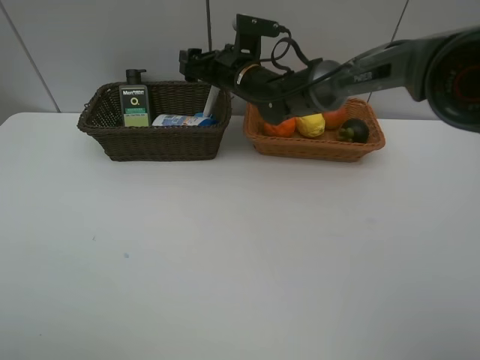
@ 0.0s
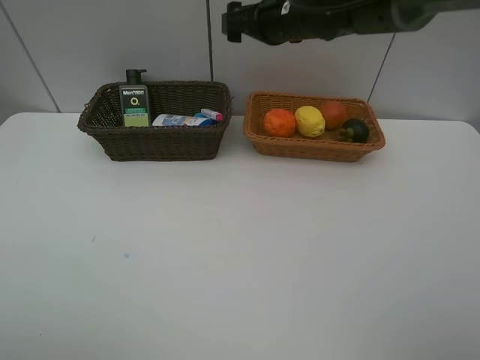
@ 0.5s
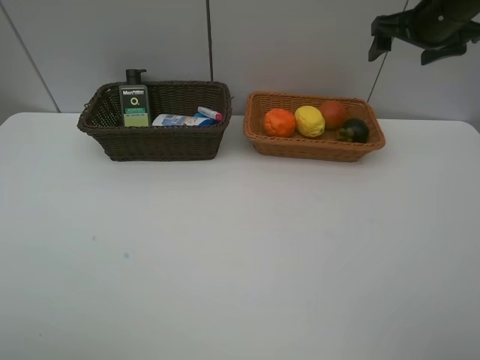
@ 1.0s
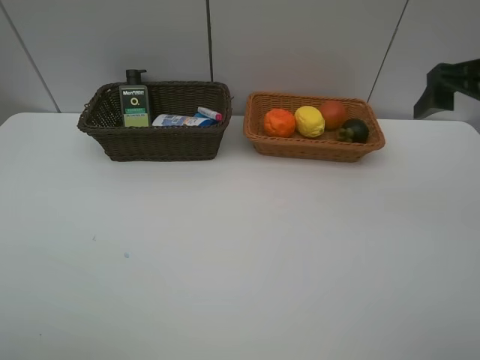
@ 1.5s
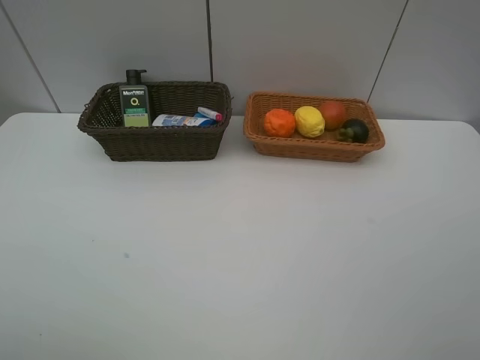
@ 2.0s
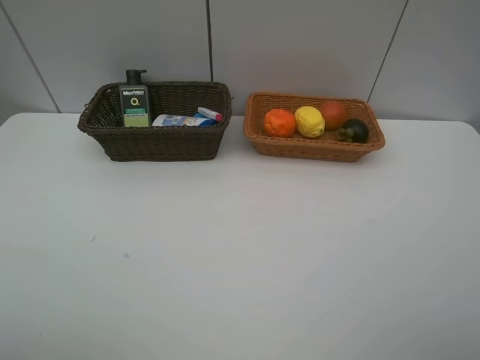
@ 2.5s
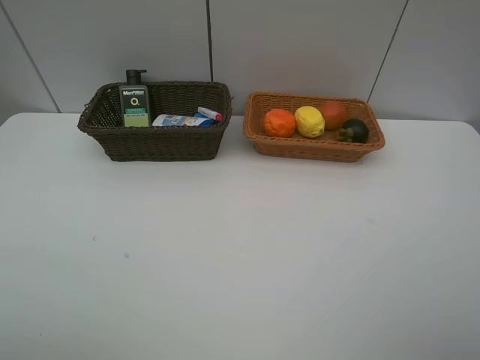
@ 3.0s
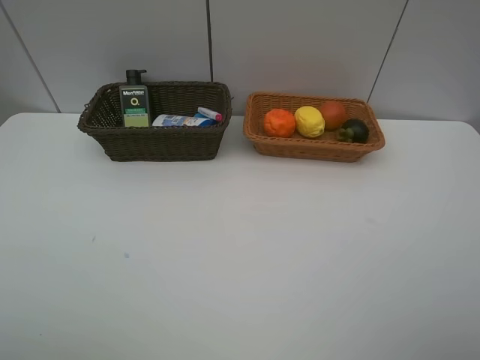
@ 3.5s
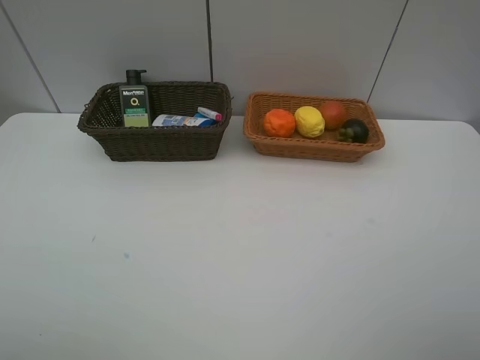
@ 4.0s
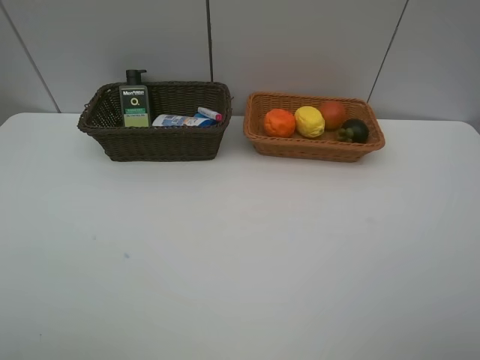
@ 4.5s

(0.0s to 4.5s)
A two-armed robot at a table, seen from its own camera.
Task of the whole recording: Place multiple objects separately in different baskets.
0.0s - 2.0s: The right gripper moves backward and to the right, some 50 cm.

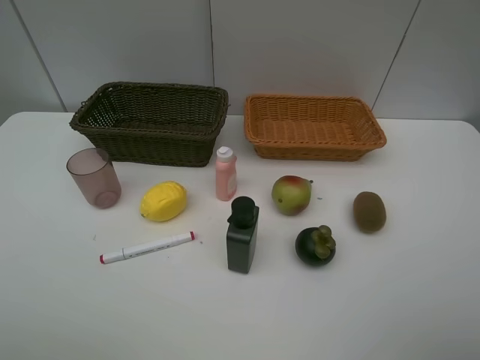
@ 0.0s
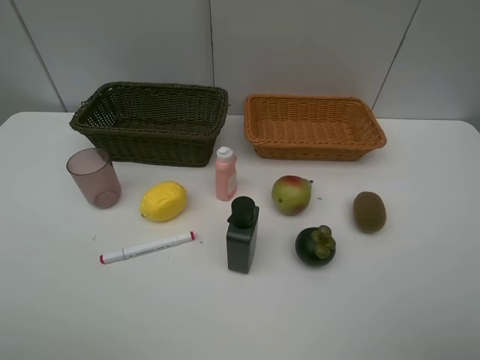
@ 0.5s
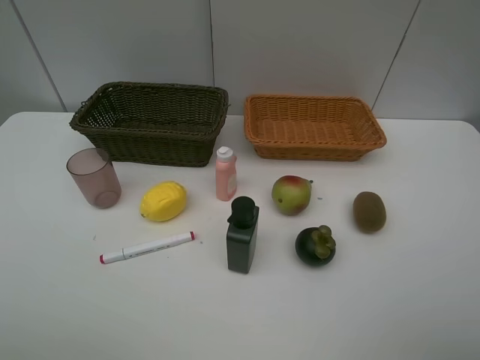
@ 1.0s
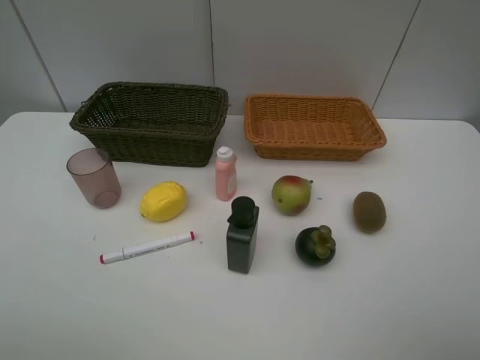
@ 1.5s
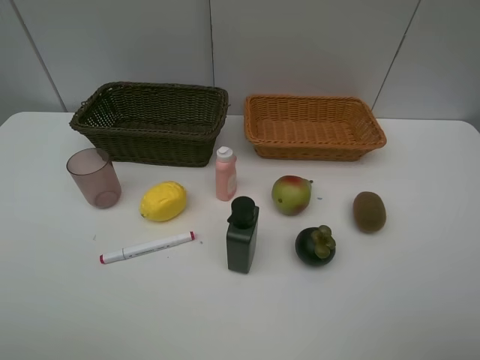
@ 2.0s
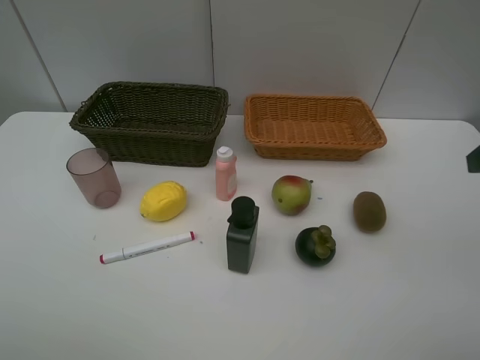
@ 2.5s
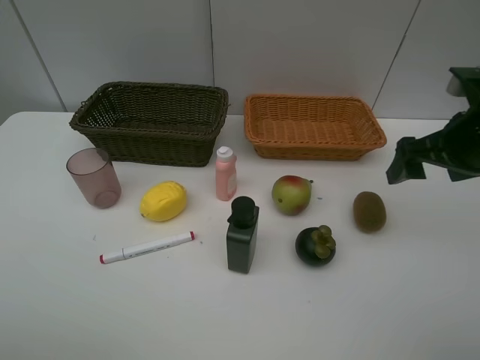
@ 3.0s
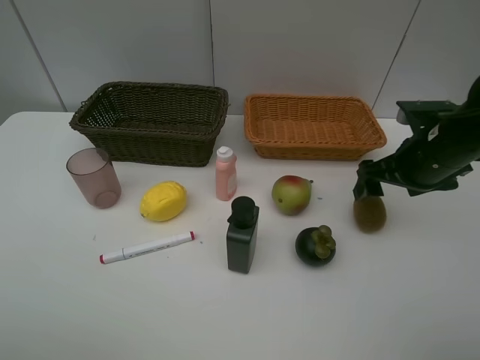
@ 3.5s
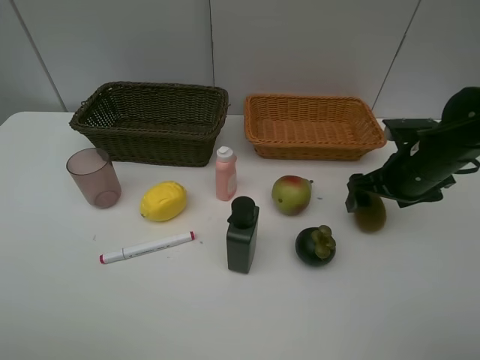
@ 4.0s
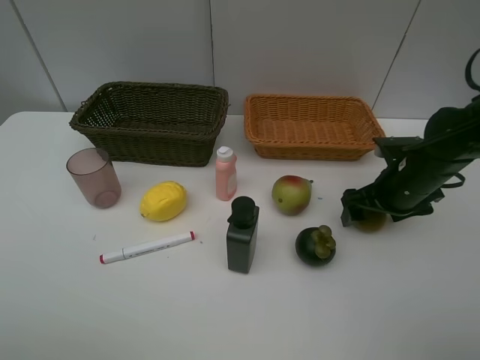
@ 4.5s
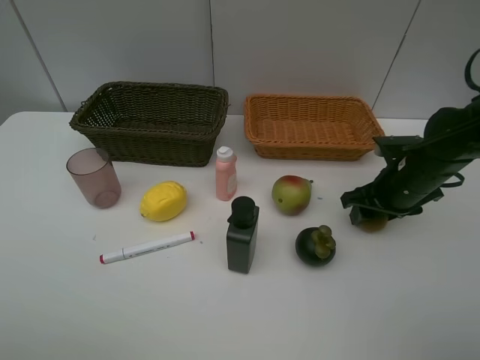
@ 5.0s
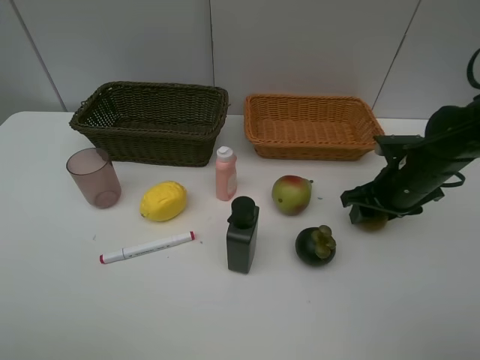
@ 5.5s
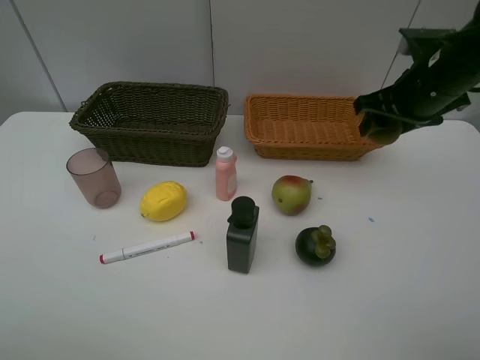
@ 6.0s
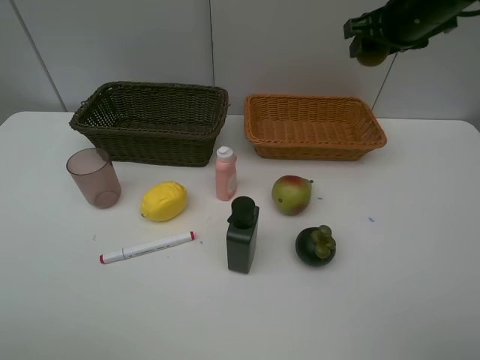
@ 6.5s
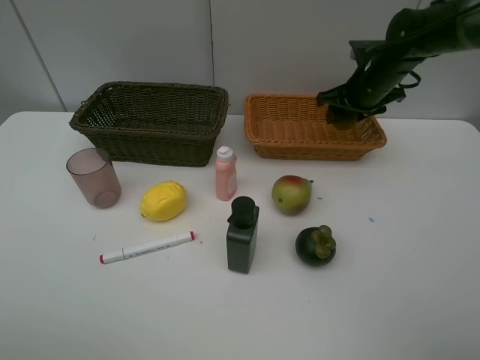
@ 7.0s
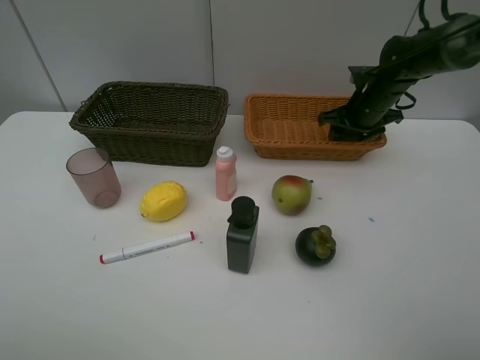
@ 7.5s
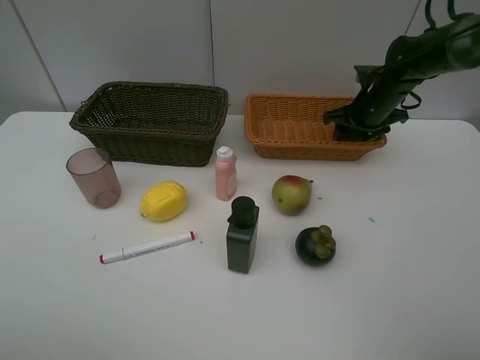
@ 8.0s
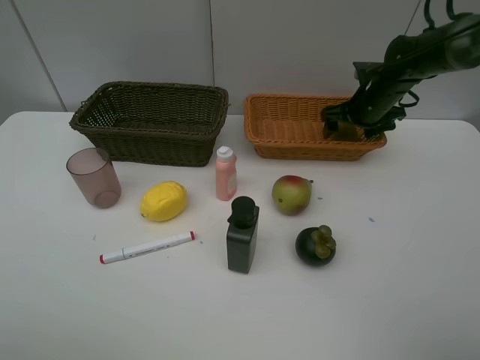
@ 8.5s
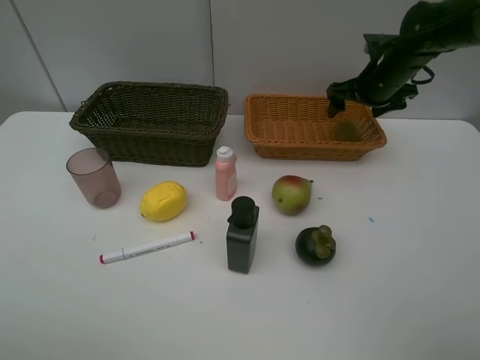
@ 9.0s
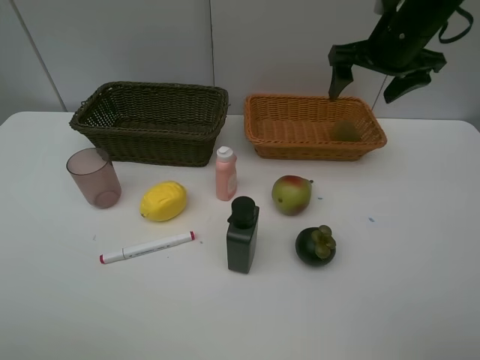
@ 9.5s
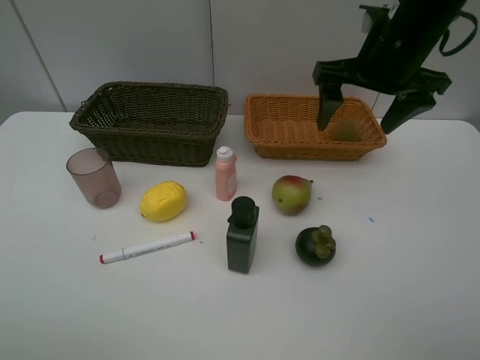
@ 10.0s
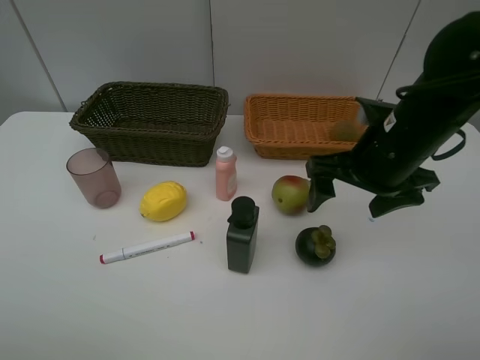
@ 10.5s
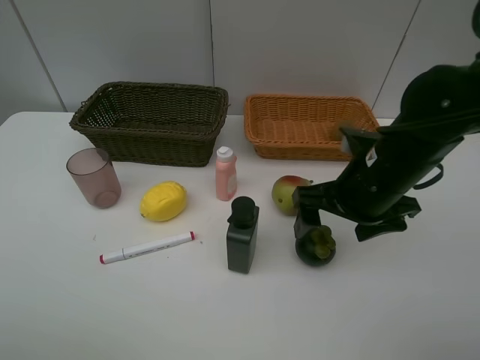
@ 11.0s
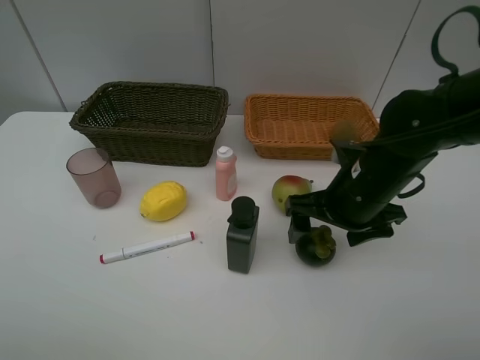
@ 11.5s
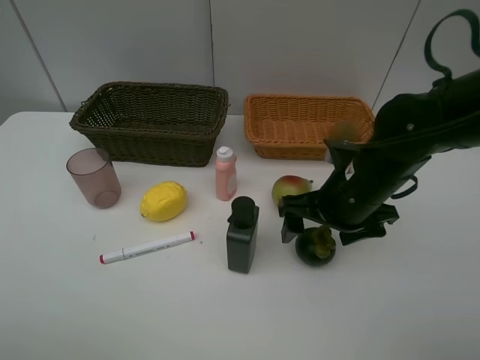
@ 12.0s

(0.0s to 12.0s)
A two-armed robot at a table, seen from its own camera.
Task of the whole recording: Place multiple objects separately in different baskets.
Step, 0.0s - 5.5s: Pick up kiwi with right gripper.
Step, 6.0s - 9.0s: Place the kiwi in the light basket with right gripper.
0.0s - 2.0s: The two grippers keep their place.
2.0s - 4.0s: The right gripper moves forward and downward, approximately 30 cm.
4.0s - 6.0s: The right gripper travels upward by roughly 10 cm, and closes up.
6.0s - 8.0s: The right gripper shifts roughly 15 cm forward and downward.
8.0s - 10.0s: The right gripper is displaced backward, upward and to the left by approximately 20 cm, and opens up.
10.0s - 12.0s: The right gripper travels downward and backward by some 15 cm.

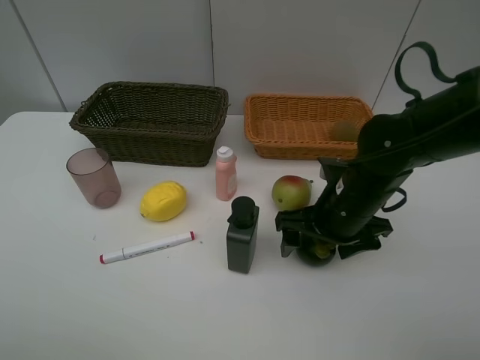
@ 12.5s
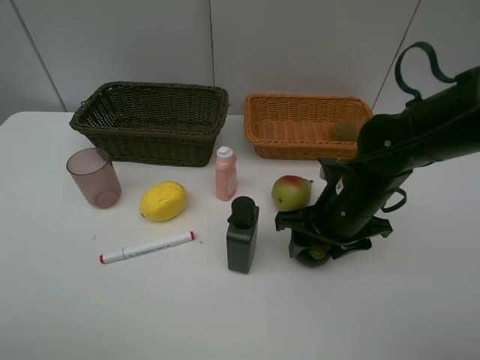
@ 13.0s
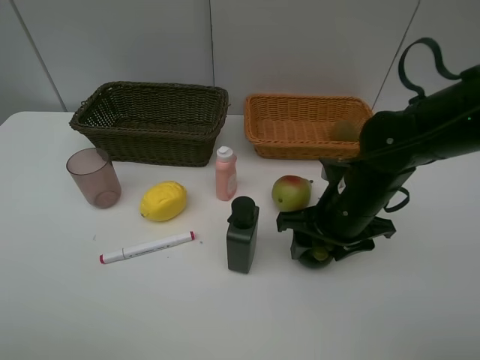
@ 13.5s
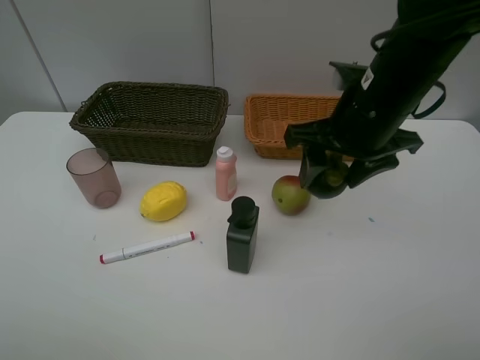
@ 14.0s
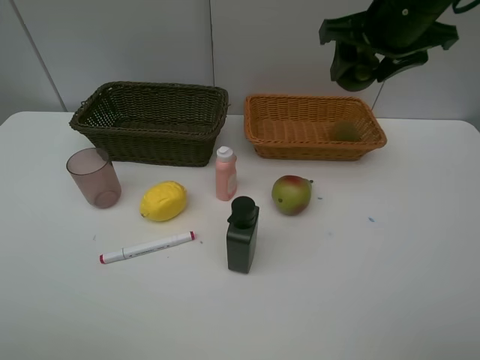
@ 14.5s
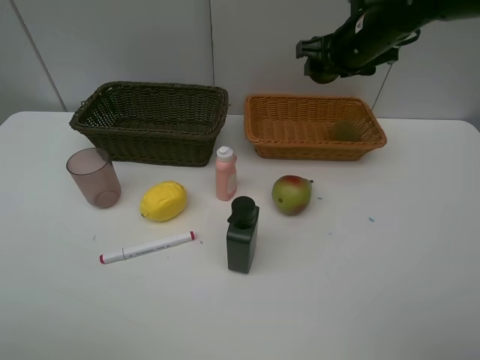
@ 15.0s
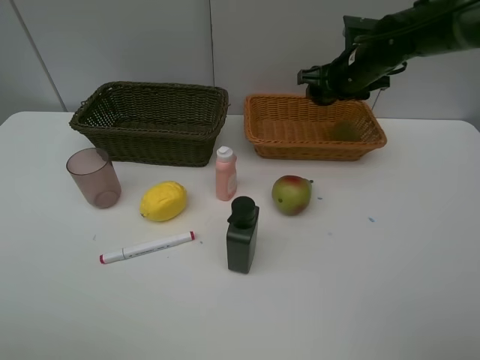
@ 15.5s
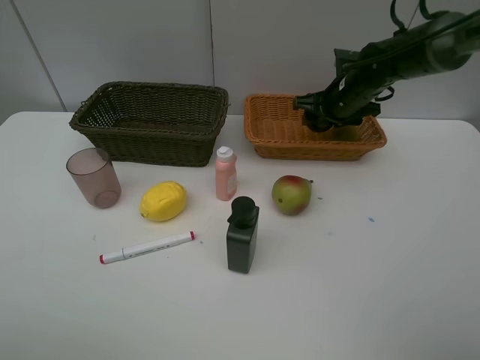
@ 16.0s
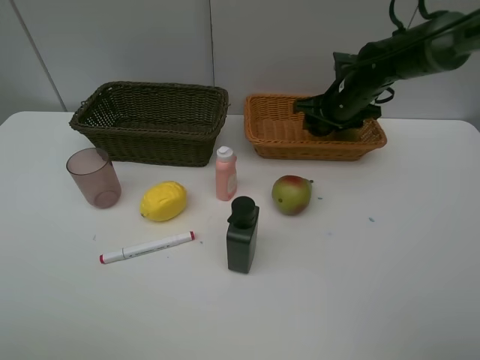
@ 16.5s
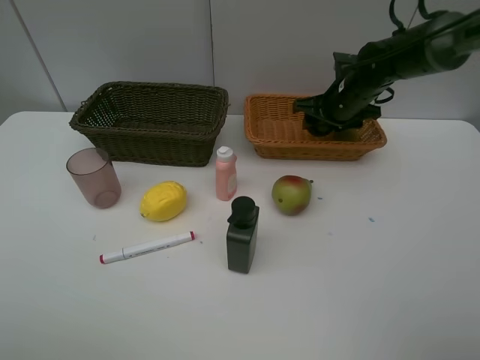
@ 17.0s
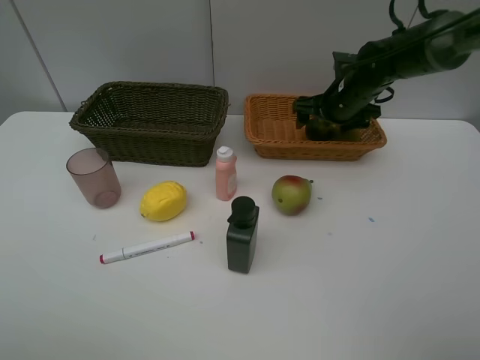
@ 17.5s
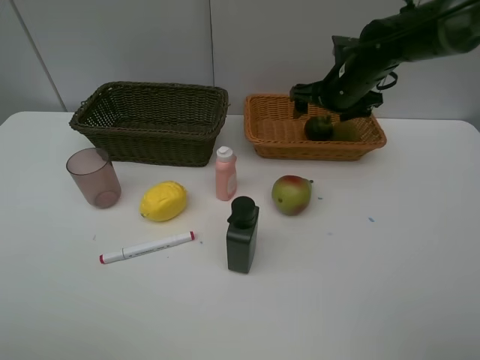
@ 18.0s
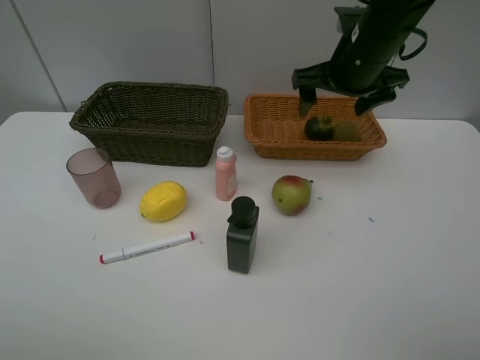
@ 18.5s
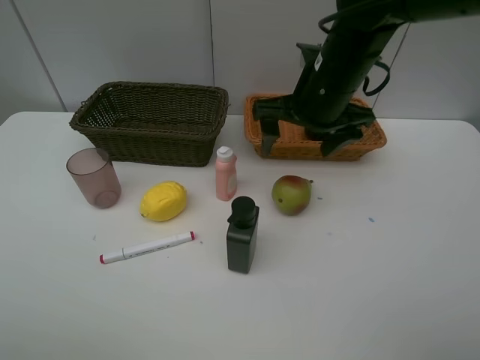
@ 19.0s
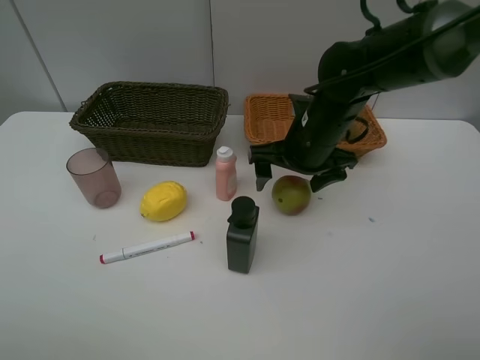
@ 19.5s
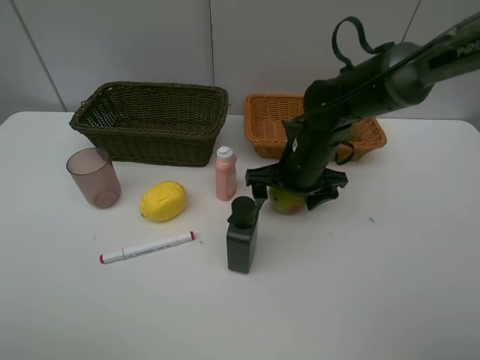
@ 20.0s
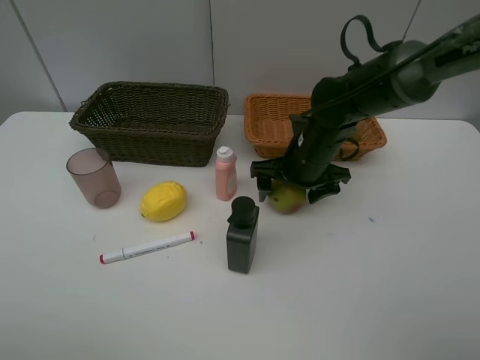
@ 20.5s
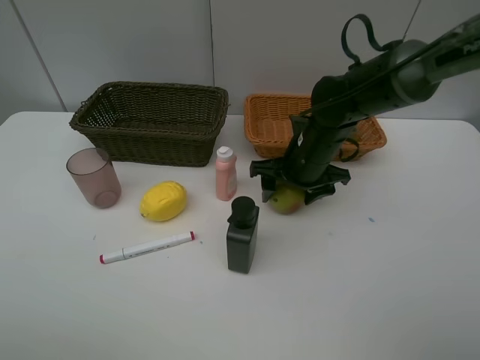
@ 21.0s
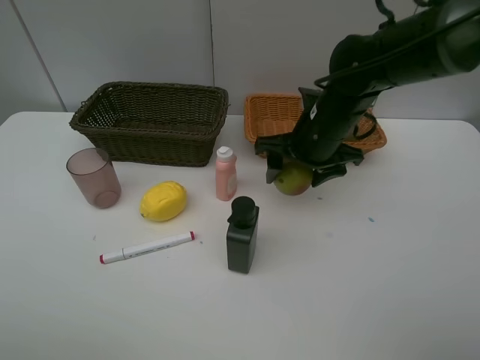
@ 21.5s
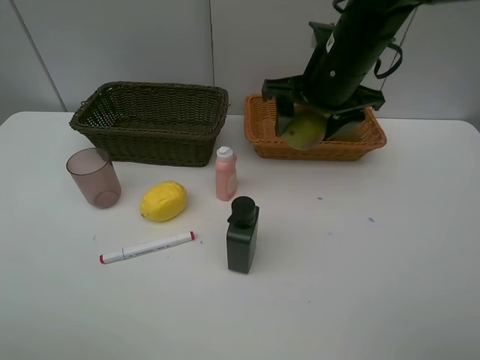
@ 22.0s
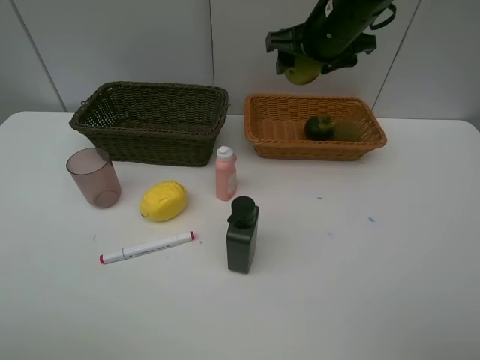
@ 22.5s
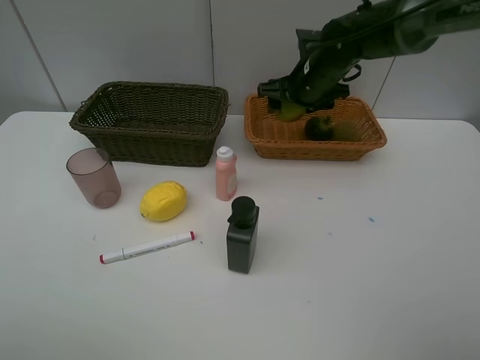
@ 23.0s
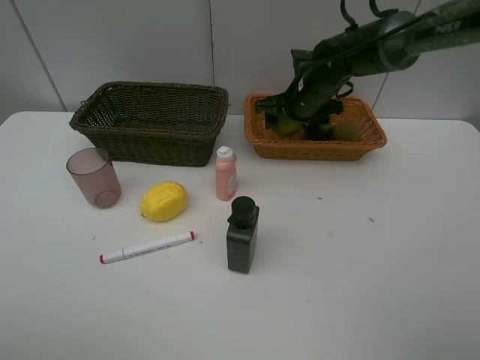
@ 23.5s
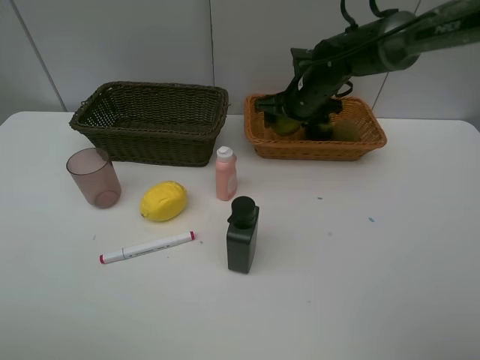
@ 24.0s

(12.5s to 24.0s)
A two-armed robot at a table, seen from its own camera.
Task of the whole recording: Place multiple objects separately in different baskets.
Step, 14.0s - 18.0s: Place the mangosteen in the light basket with right gripper.
Step, 18.5s - 21.5s: Pick up the pear with right gripper.
12.5s - 14.5s: The right gripper moves upward and forward, about 20 cm, and closes up.
14.5s - 16.5s: The right gripper shifts about 20 cm downward and forward.
16.5s - 18.5s: The right gripper goes approximately 15 cm upward and backward, and opens its fingers.
18.5s - 20.0s: The right gripper travels downward by some 15 cm.
20.0s - 22.0s: The right gripper heads upward, covering roughly 15 cm, and closes its fingers.
22.0s - 24.0s: The right gripper heads downward and forward, covering roughly 15 cm.
